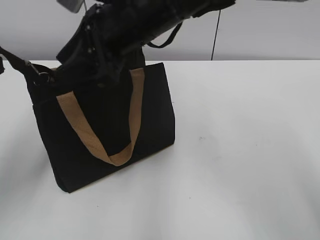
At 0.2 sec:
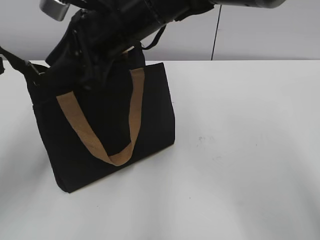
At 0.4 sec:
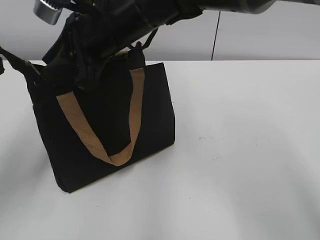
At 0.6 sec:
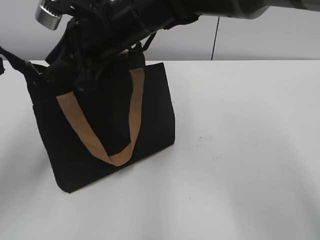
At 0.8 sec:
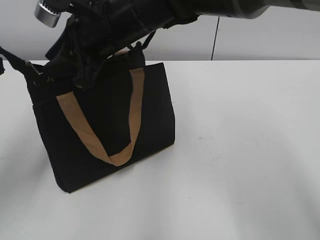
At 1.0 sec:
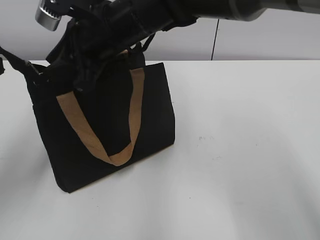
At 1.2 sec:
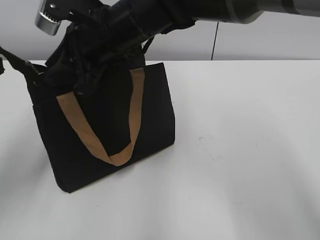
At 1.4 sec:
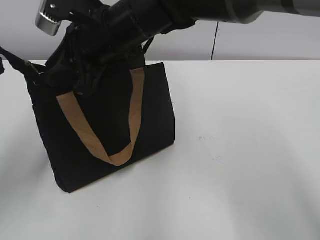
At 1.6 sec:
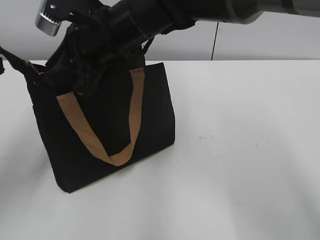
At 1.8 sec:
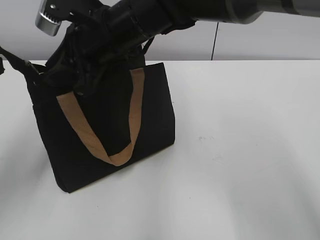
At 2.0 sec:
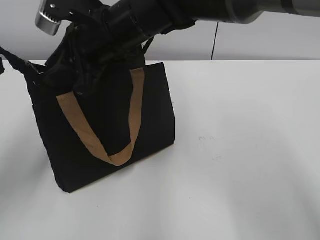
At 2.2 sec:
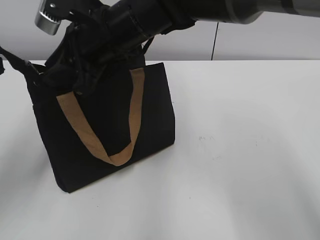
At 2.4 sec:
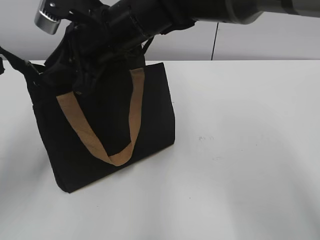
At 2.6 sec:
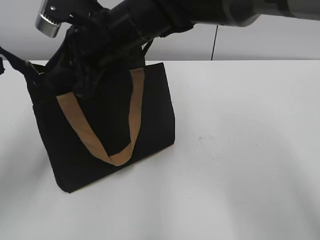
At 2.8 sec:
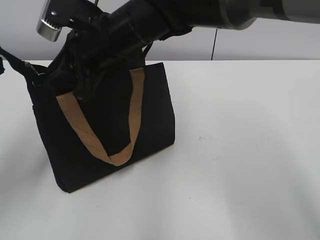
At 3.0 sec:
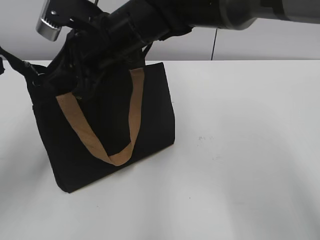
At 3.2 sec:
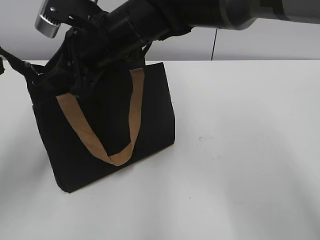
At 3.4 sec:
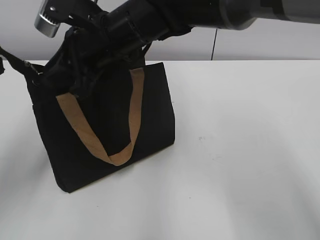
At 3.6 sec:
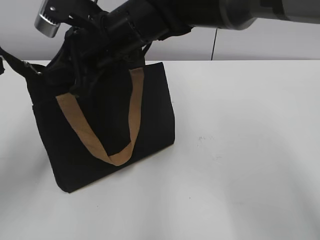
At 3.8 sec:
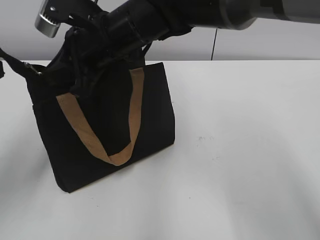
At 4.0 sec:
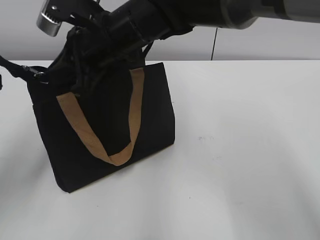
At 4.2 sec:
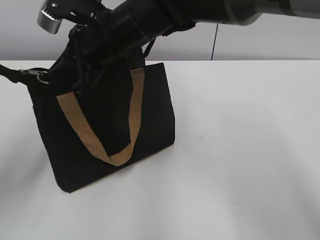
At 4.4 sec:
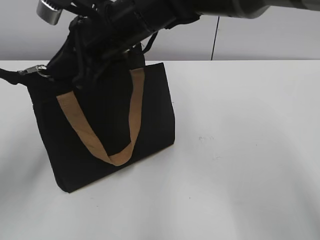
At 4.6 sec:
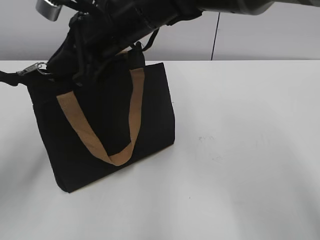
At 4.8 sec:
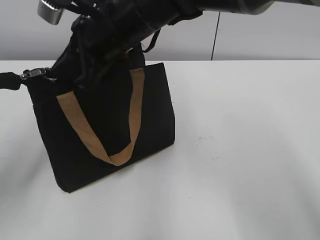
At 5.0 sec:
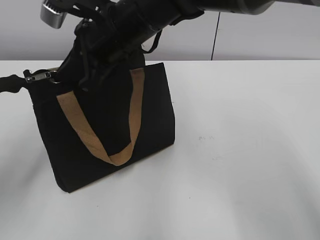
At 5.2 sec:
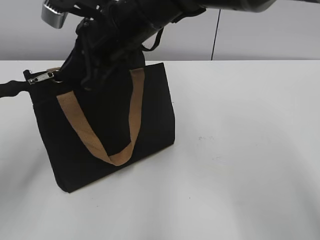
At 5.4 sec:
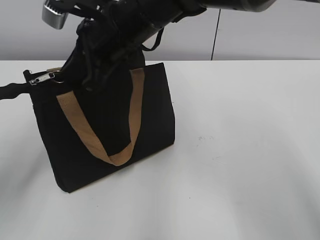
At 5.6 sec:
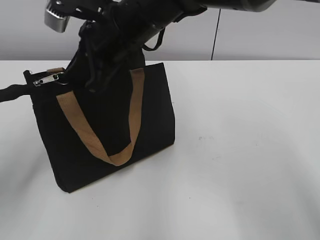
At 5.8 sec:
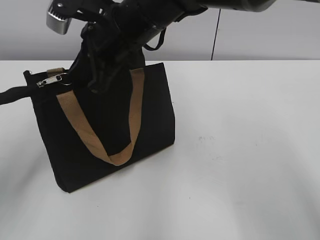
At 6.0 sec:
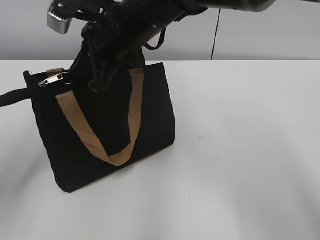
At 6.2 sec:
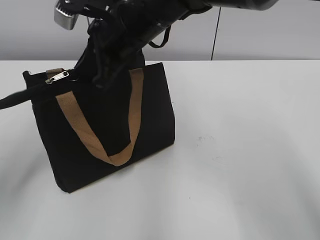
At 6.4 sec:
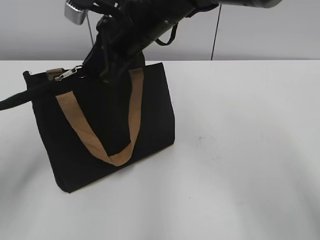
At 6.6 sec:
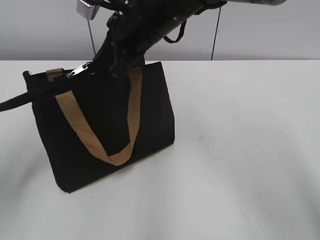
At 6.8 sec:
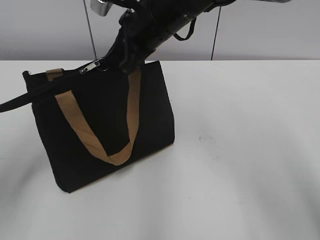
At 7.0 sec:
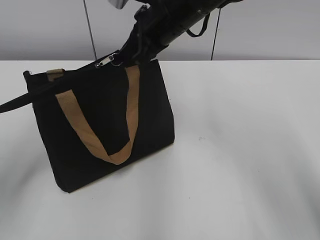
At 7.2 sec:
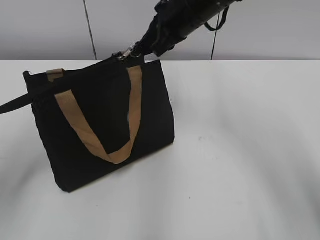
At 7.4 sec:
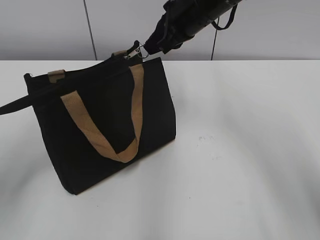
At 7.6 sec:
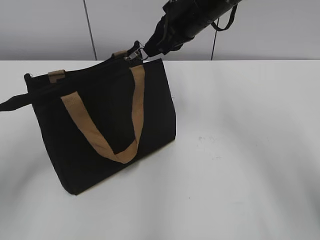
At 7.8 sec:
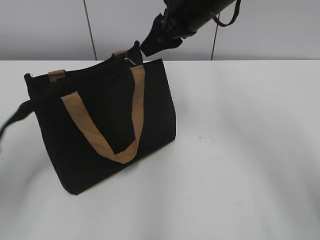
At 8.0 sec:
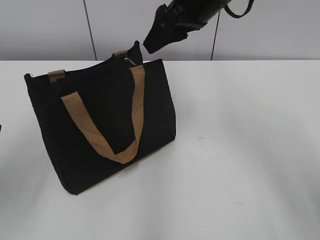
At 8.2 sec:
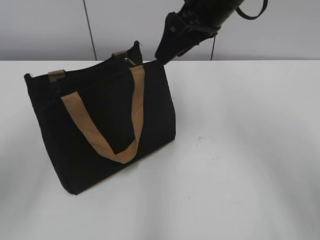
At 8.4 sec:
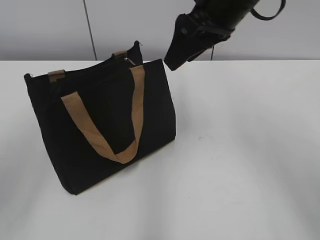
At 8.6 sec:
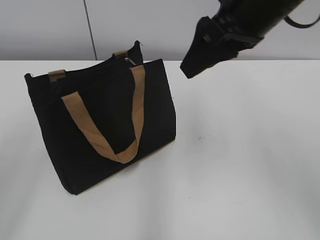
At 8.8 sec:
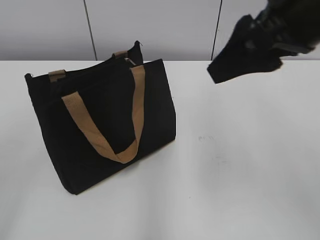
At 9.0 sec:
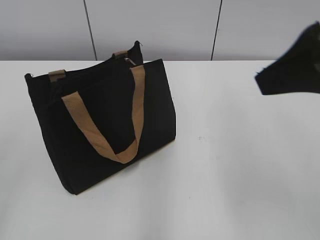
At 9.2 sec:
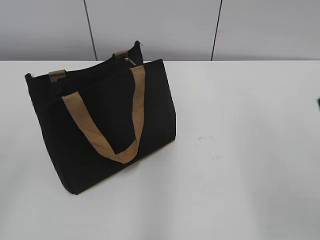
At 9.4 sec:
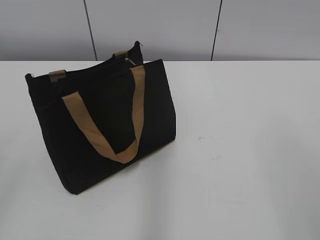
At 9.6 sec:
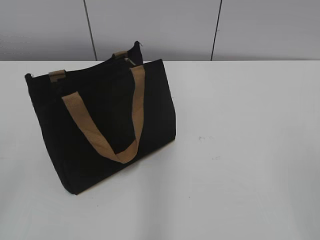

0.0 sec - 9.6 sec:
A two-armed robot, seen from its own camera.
Step, 0.0 sec - 7.6 sec: Zip up the bag with your right hand.
0.0 sec - 1.6 sec: The right gripper changes place by some 5 cm.
1.6 sec - 3.2 sec: Both grippers stay about where they are.
3.2 sec - 4.8 sec: The right gripper closes.
4.8 sec - 6.4 sec: The grippers move only a little.
6.4 sec - 8.0 sec: The left gripper opens up; the right gripper is displaced to the right by about 10 cm, and opens its fingers.
8.0 sec - 9.6 sec: The left gripper moves backward, about 15 cm, while the right gripper is displaced backward and to the right by some 40 cm.

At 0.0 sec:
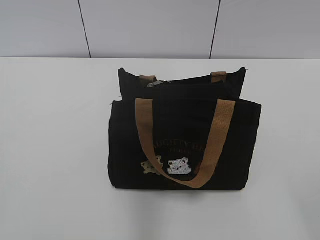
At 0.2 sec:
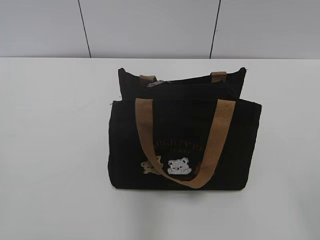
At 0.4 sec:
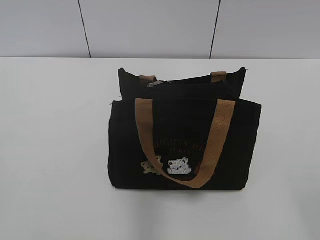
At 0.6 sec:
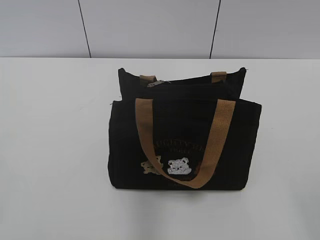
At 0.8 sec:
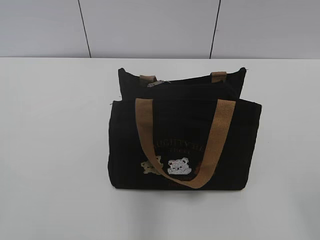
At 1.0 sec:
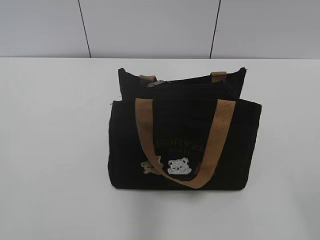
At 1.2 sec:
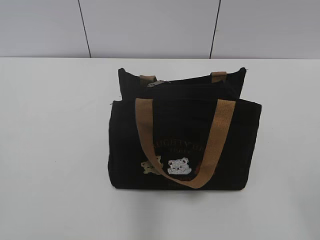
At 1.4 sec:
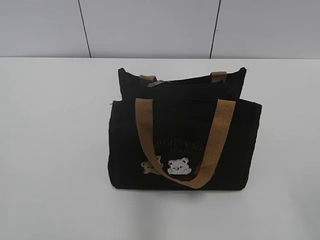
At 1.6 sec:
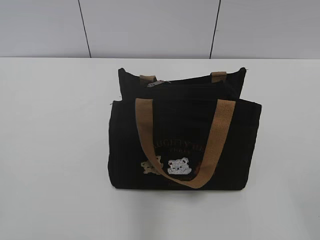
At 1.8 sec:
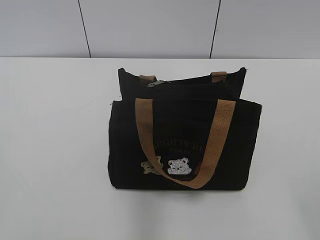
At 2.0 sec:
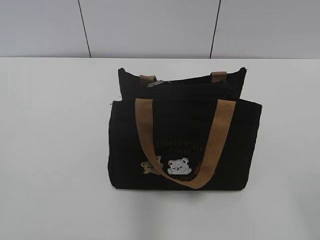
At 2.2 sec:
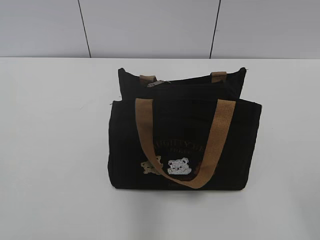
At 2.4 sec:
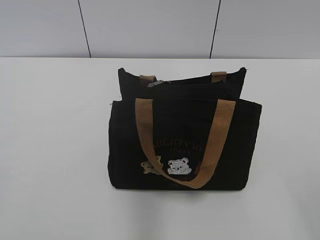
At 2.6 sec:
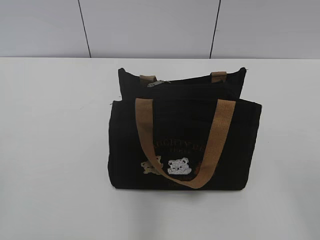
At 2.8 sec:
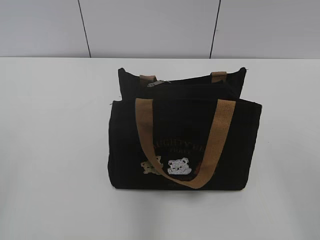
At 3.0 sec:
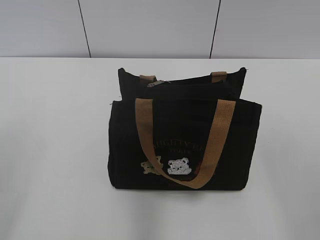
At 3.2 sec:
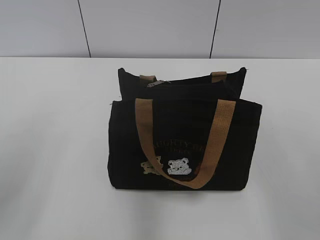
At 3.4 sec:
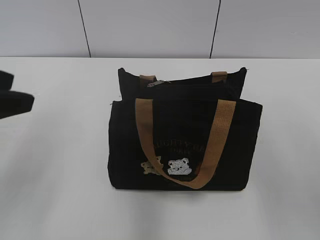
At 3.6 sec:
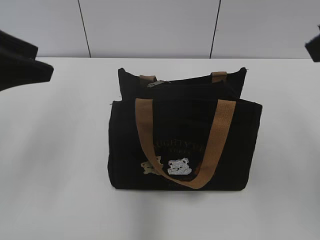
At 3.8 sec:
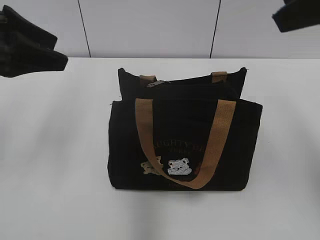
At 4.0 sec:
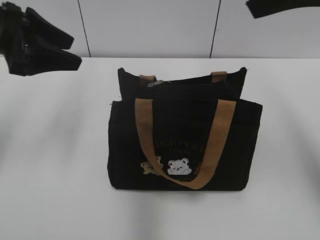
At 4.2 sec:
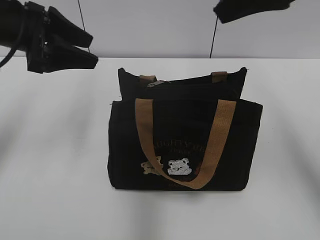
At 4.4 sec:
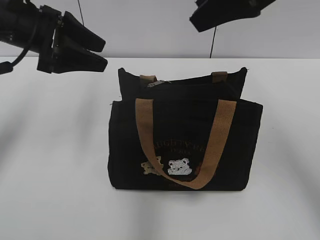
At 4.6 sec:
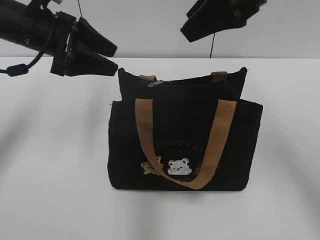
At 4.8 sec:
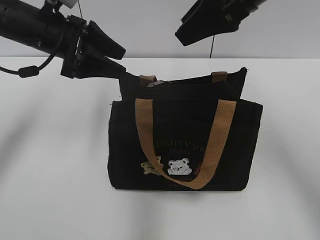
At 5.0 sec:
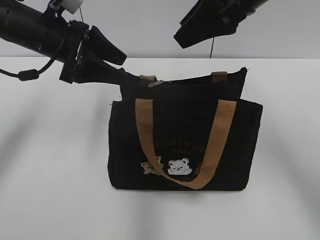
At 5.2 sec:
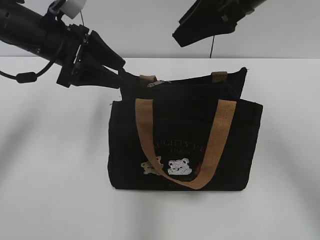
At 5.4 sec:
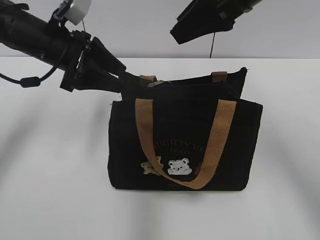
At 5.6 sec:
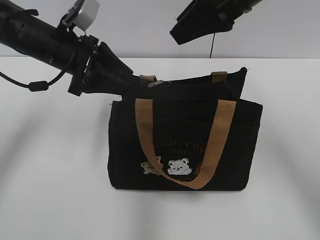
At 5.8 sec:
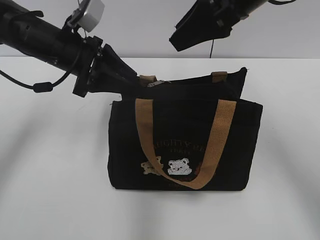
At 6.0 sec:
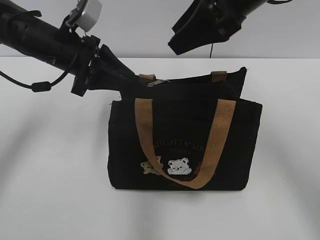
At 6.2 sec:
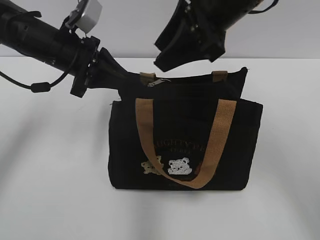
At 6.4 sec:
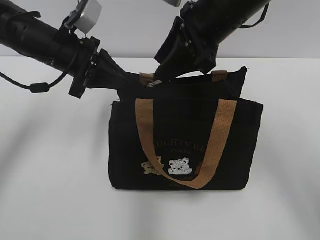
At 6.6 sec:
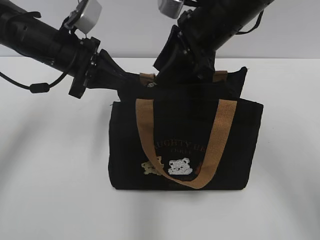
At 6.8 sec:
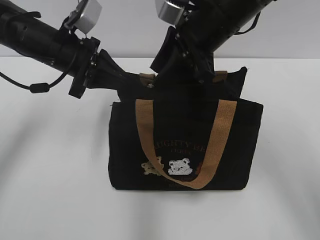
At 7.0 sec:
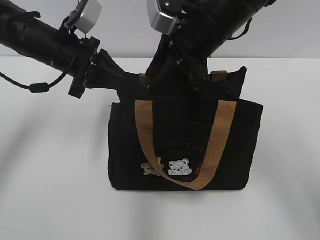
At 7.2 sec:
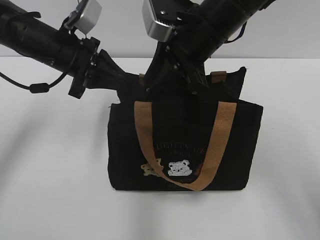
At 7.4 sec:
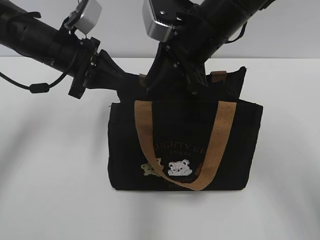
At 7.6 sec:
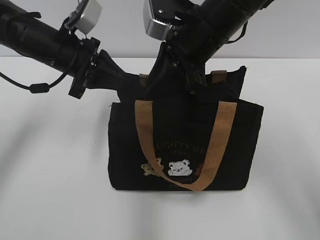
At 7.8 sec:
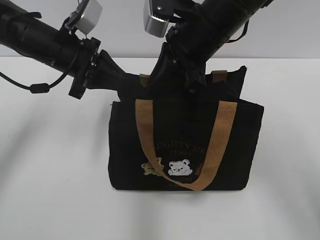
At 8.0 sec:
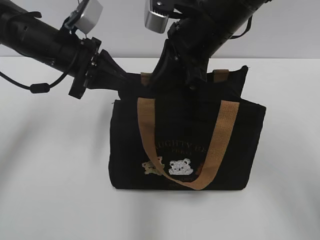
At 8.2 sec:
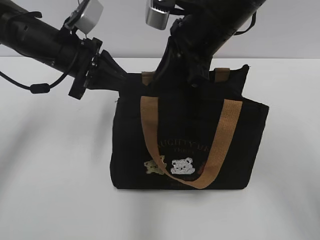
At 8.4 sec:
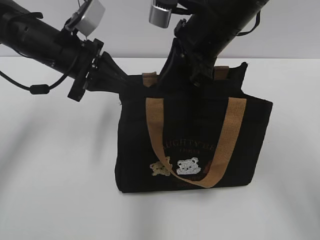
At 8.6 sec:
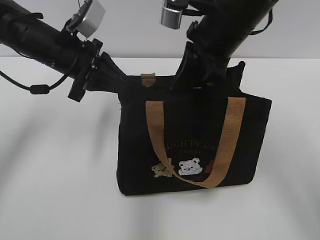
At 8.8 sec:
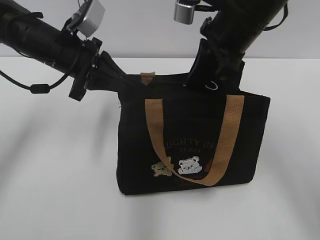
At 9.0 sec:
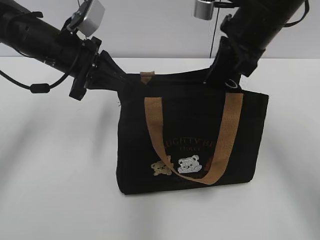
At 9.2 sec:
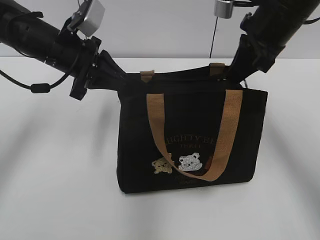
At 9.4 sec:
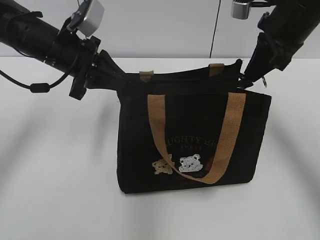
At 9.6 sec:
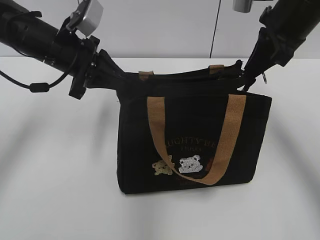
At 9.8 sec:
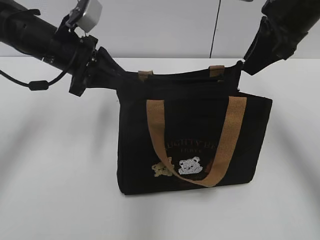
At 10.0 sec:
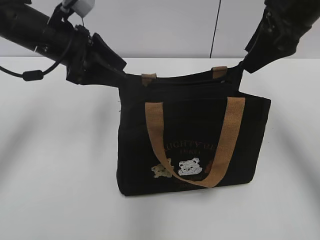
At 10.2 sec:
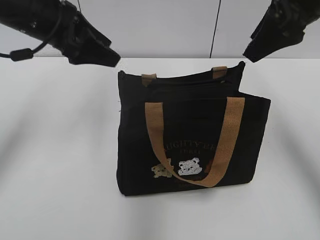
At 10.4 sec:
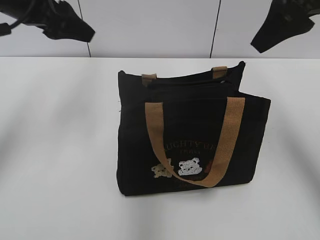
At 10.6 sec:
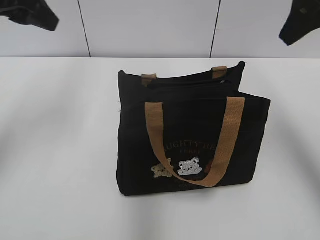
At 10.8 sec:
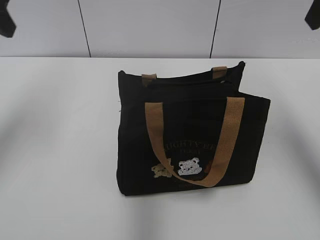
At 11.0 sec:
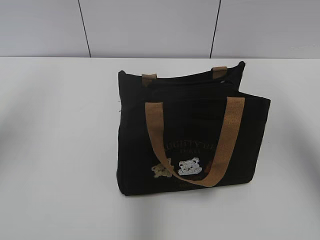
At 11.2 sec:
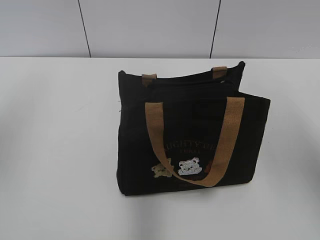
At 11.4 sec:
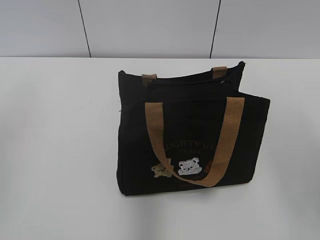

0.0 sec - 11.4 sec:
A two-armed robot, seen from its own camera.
Step, 0.0 sec - 9.6 sec: Pull open the zipper with your right hand.
Step, 9.8 sec - 10.0 sec: Hold the bag with your left hand.
2.8 sec - 4.2 sec: The left gripper moves forward, roughly 30 cm, while the right gripper moves forward and to the left, roughly 30 cm.
4.2 sec - 5.6 sec: The right gripper changes place by about 10 cm, while the left gripper is displaced downward and to the right by about 10 cm.
5.6 sec - 7.2 sec: The right gripper heads downward and to the left, covering about 10 cm. The left gripper closes.
7.2 sec - 8.6 sec: The right gripper closes up.
8.6 sec - 10.0 sec: The right gripper is displaced to the right by roughly 10 cm, and opens up, while the left gripper opens its fingers.
10.0 sec - 11.4 sec: The right gripper travels backward and upward by about 20 cm. Meanwhile the left gripper goes roughly 25 cm backward, upward and to the left.

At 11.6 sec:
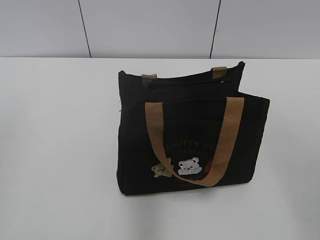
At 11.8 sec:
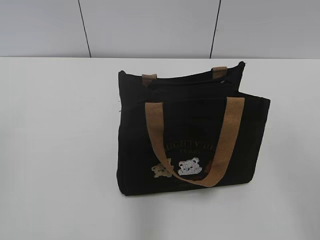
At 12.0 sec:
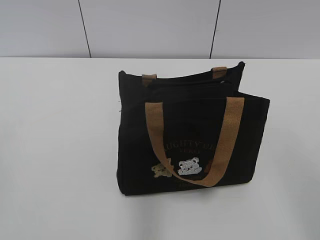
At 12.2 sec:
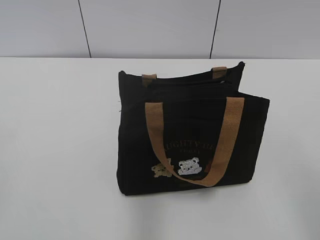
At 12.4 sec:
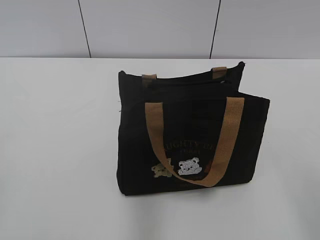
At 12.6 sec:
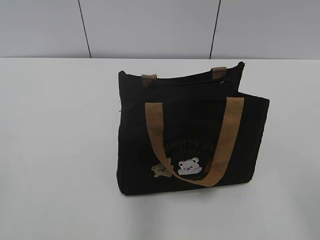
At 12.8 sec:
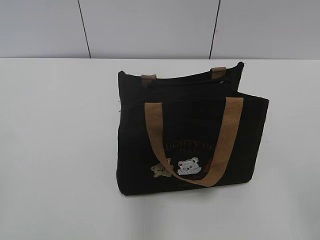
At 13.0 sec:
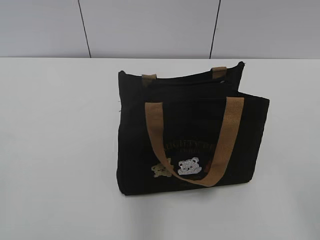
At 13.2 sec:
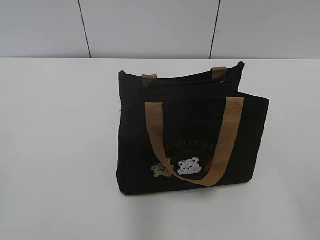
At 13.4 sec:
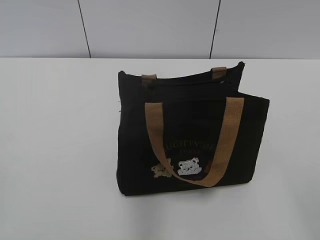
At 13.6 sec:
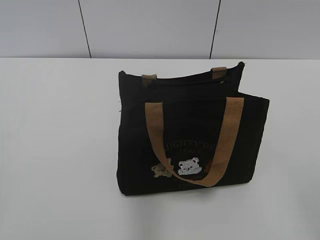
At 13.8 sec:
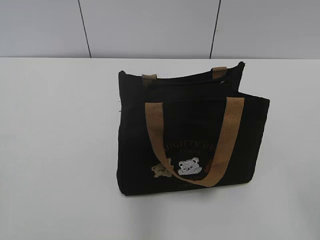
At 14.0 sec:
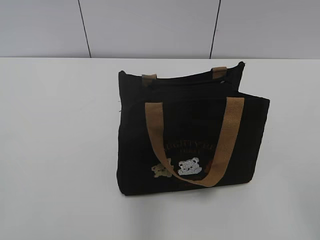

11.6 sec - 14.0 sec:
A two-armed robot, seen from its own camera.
11.6 sec - 12.8 sec: The right gripper travels backward and downward by about 15 cm.
